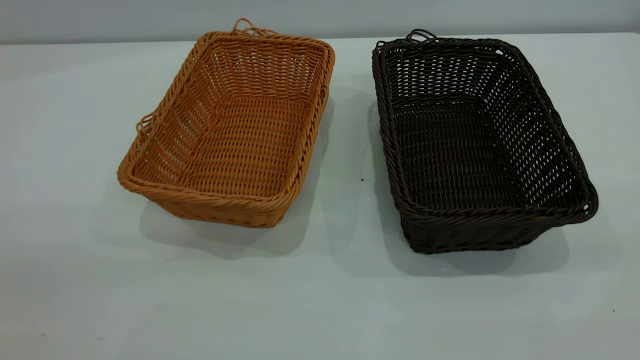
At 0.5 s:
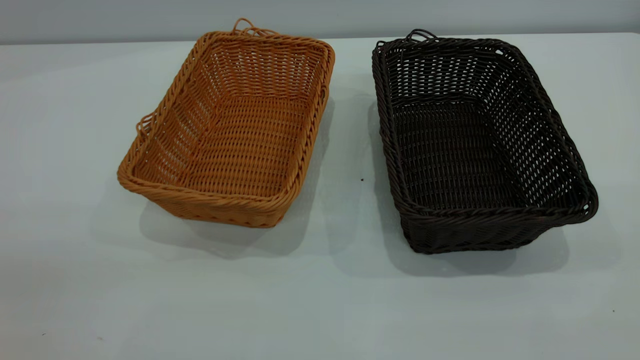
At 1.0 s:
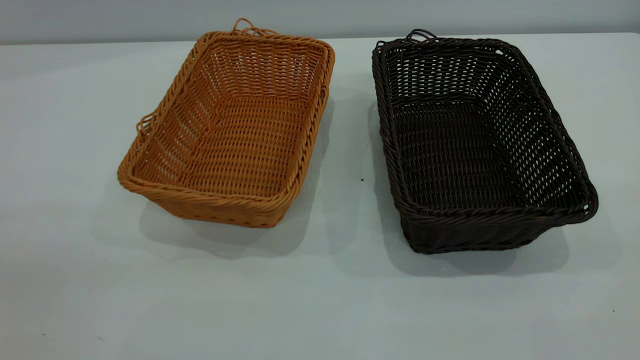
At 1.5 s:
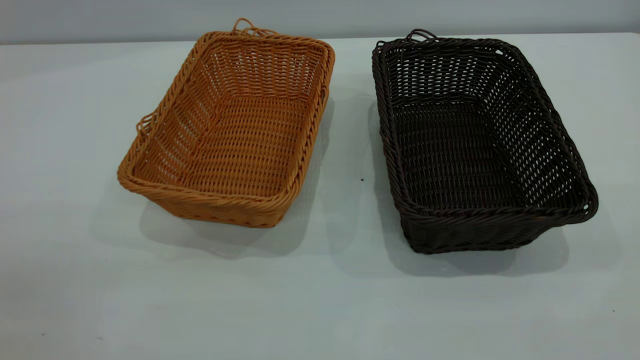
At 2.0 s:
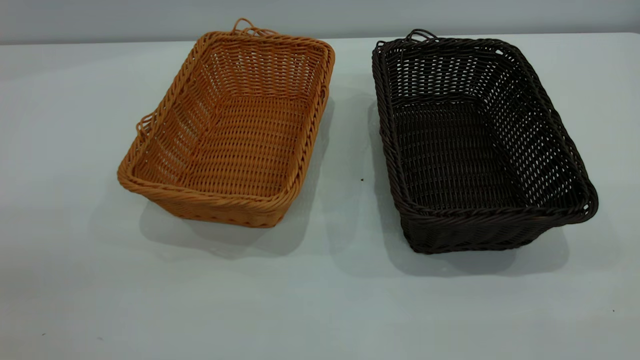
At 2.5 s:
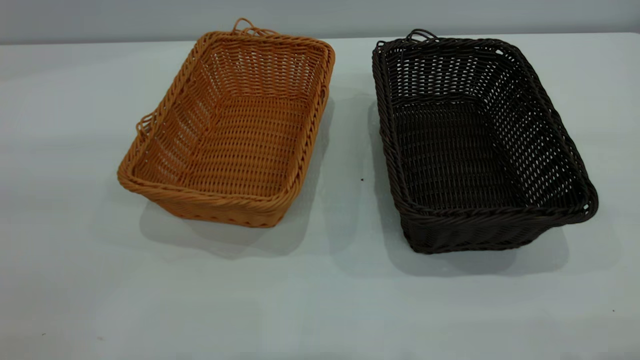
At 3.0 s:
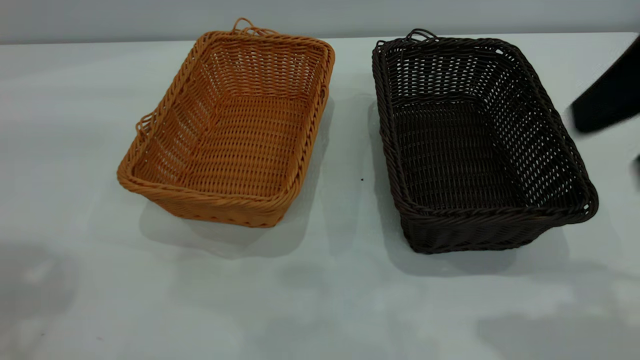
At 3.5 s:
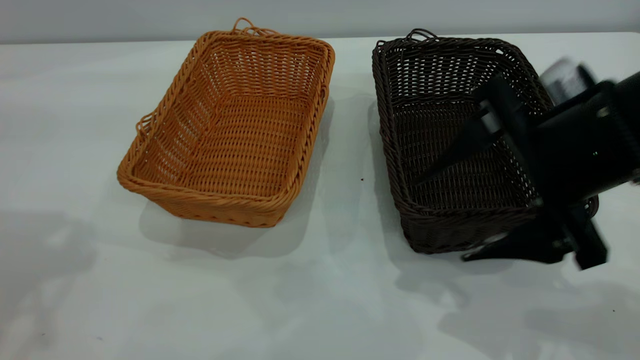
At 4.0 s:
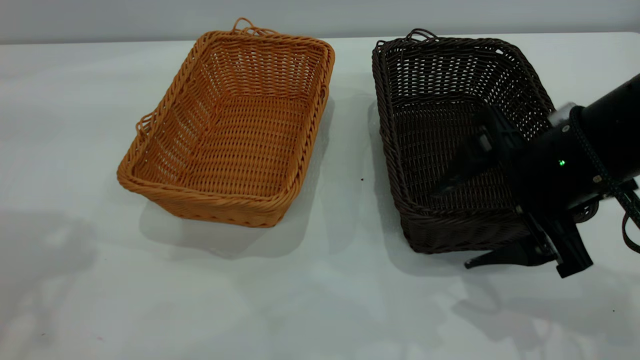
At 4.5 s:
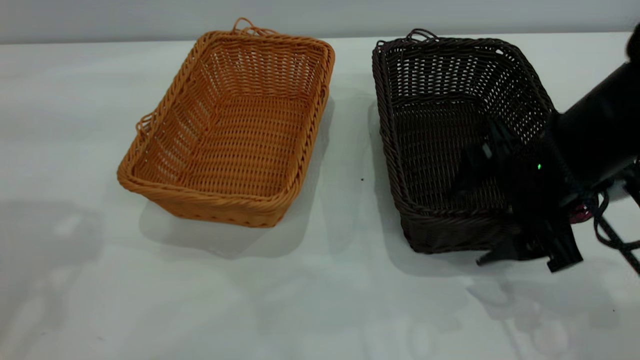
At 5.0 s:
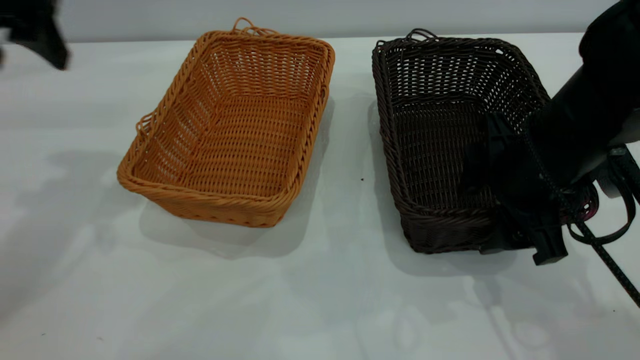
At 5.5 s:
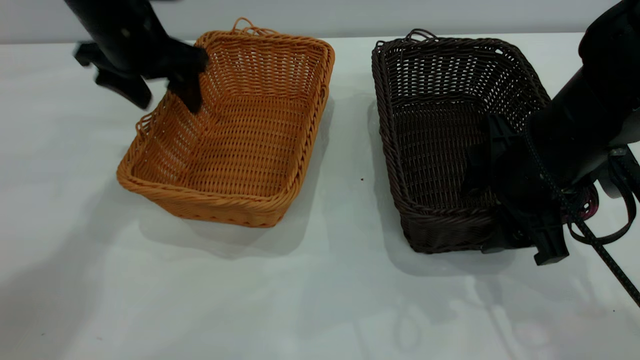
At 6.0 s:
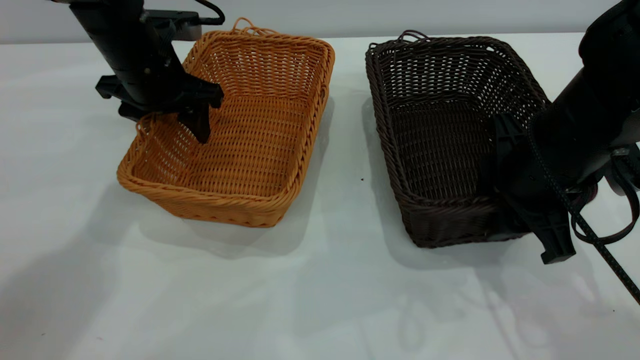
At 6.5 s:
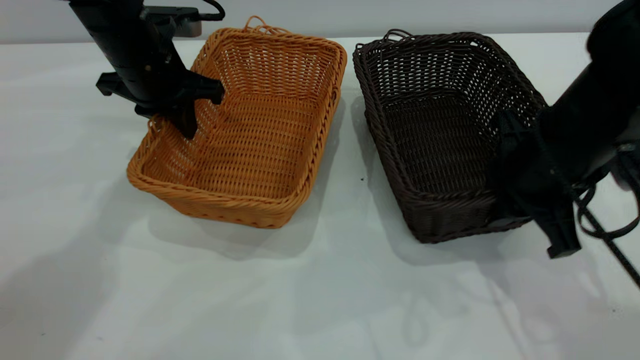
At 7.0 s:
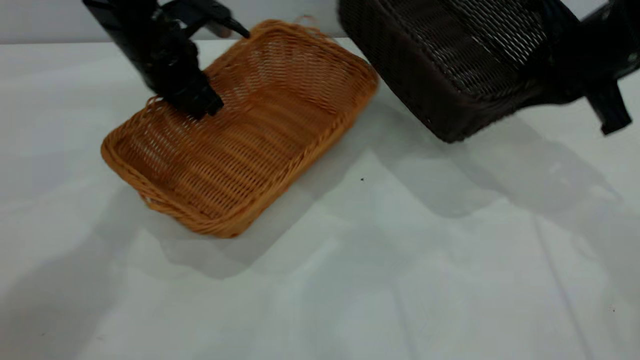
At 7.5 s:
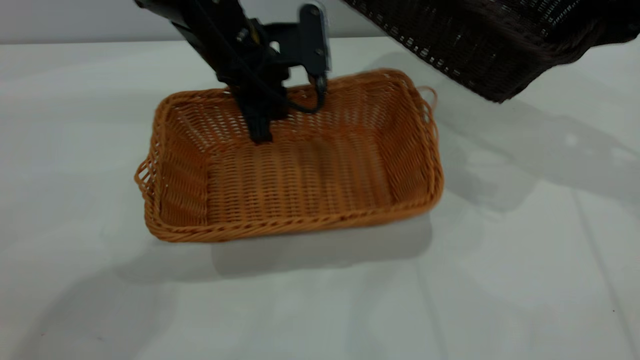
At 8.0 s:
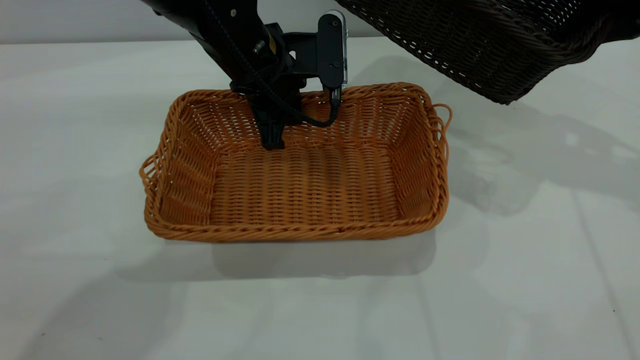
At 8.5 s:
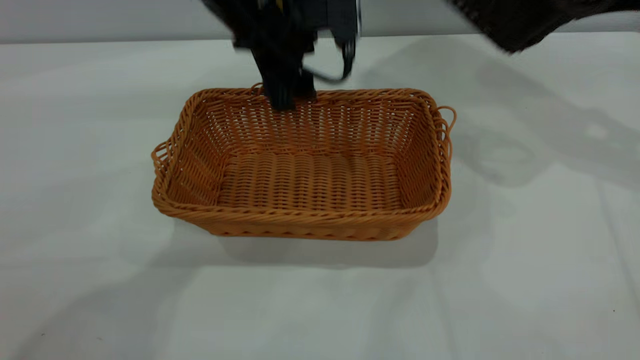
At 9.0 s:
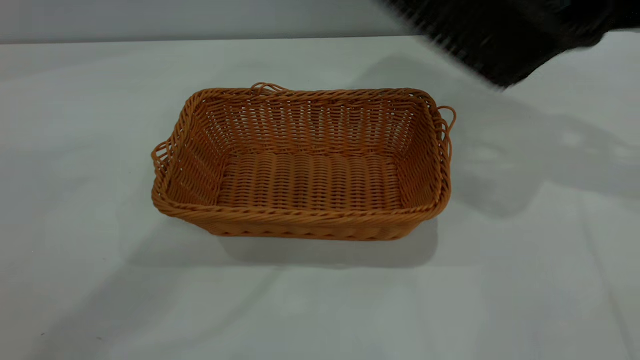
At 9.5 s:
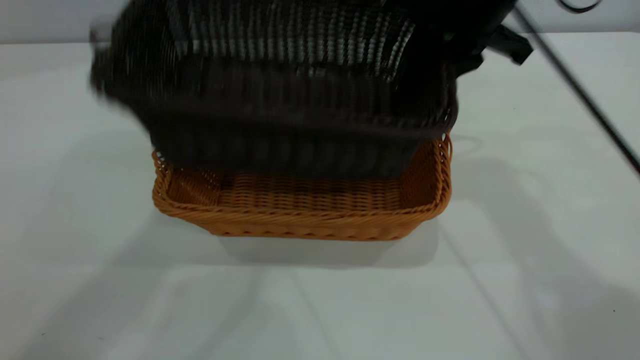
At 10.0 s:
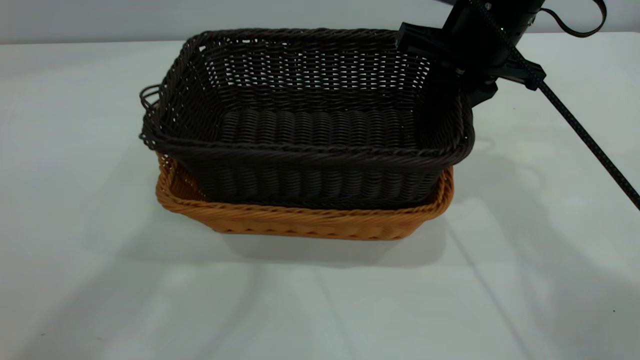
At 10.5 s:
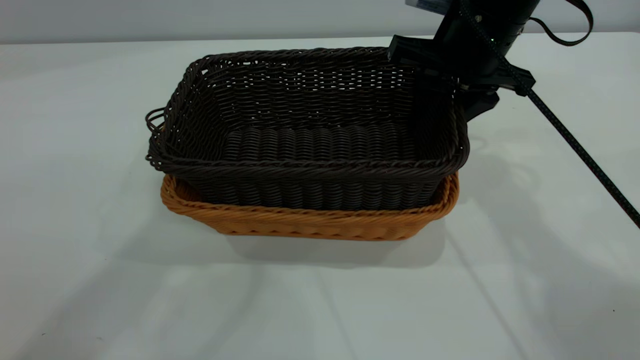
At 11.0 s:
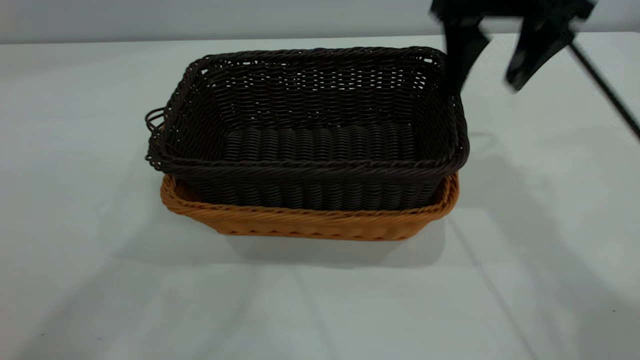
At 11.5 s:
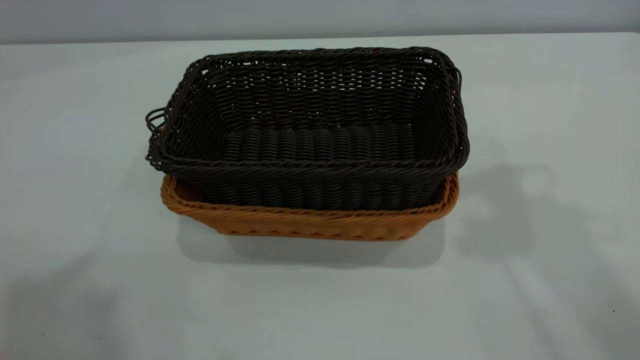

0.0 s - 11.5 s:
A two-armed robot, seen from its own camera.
Task of the whole recording: the left gripper grasp the brown basket and place it in the center of the table, the right gripper grasp the black basket and place it inside the brown one.
Step, 0.0 s - 6.5 s: Pick up the light basket with the right gripper.
Step, 7.0 s - 8.5 s: Place the light-colored basket in the center.
Step, 9.0 s - 10.5 s: Place the dark basket on top of the light basket.
0.0 s - 2.0 s: The two grippers keep their place.
2.0 s - 4.0 s: The right gripper heads forward, downward and to the left, covering roughly 35 cm, and opens.
4.0 s - 6.0 s: The right gripper closes its fingers. The left gripper heads downward, forward and to the right, covering roughly 30 cm.
6.0 s - 7.5 s: The left gripper moves to the right, some 10 cm, and closes; the right gripper goes about 20 cm to the right, forward and upward.
7.5 s - 9.5 s: The right gripper is displaced to the left by approximately 20 cm, while the left gripper heads upward, covering roughly 35 cm, and opens its fingers.
9.5 s - 11.5 s: The left gripper travels backward, to the left and upward by roughly 15 cm; the right gripper goes approximately 25 cm upward and backward, and opens its fingers.

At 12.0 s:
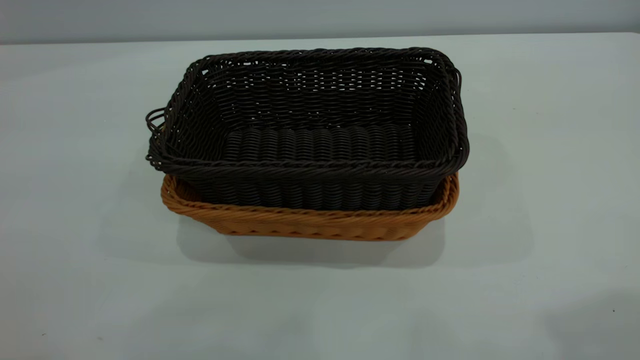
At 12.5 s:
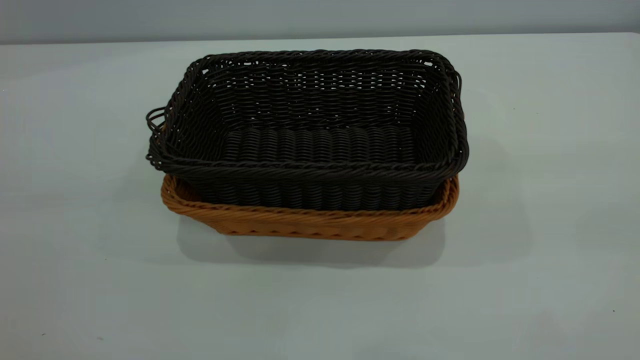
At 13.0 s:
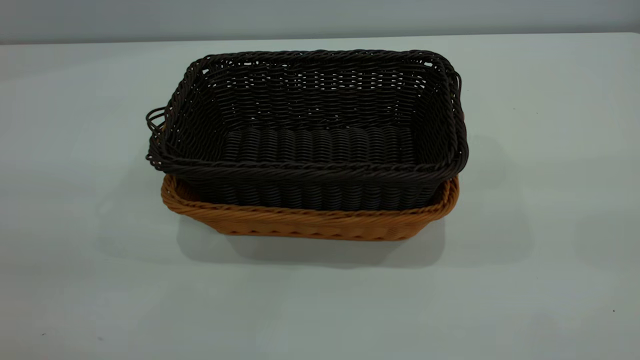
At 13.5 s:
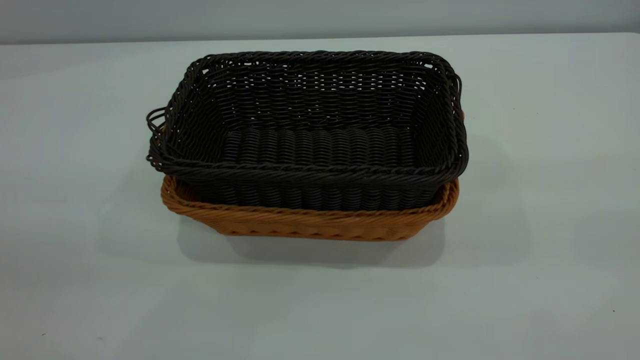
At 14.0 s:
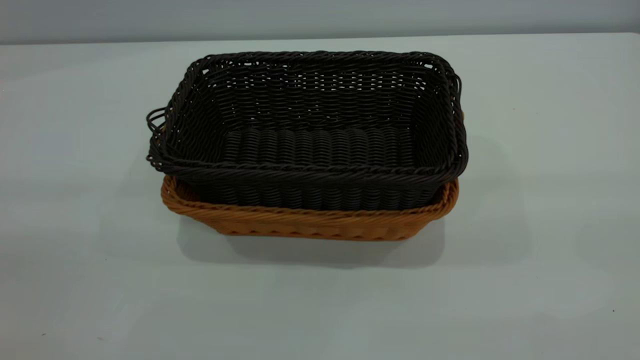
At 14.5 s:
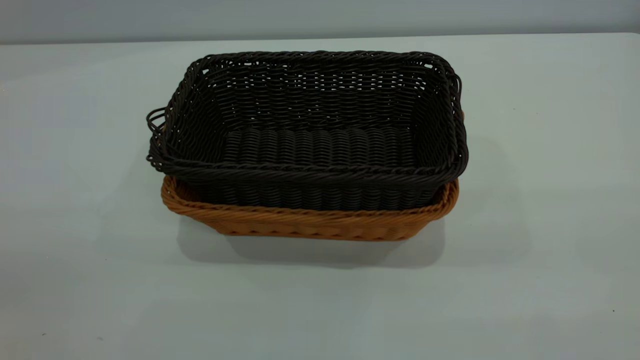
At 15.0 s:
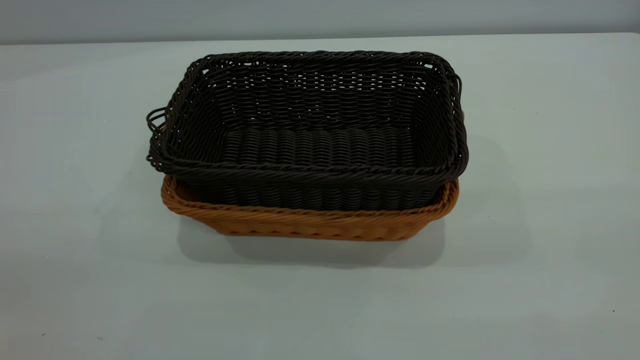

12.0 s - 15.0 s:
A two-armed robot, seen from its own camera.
Task of the whole recording: the left gripper grasp the brown basket and place it in the center of the table, the right gripper grasp the black basket and place it inside the brown one.
12.0 s - 13.5 s: The right gripper is displaced downward and backward by roughly 15 cm.
